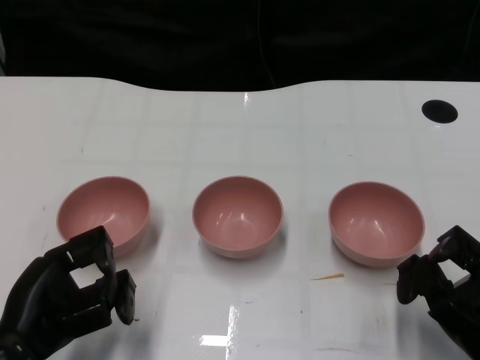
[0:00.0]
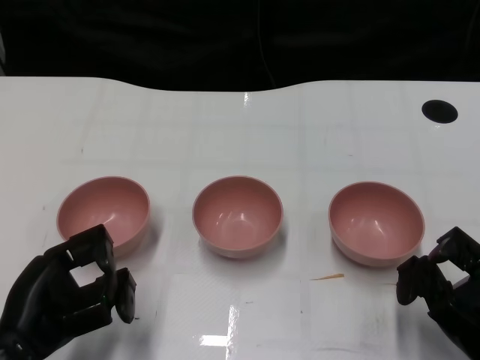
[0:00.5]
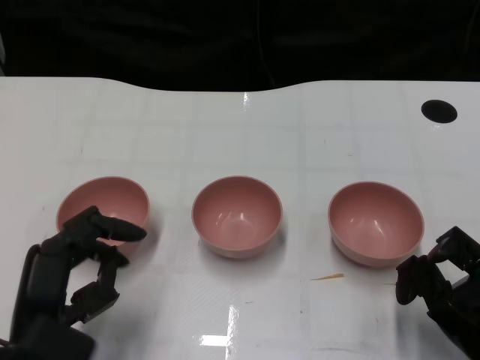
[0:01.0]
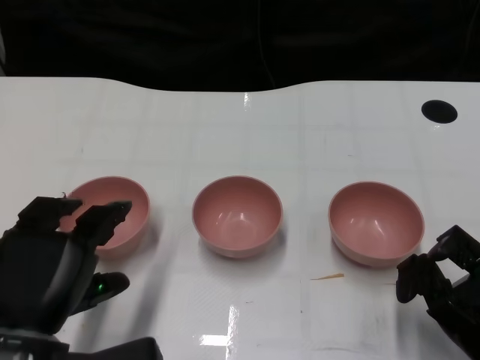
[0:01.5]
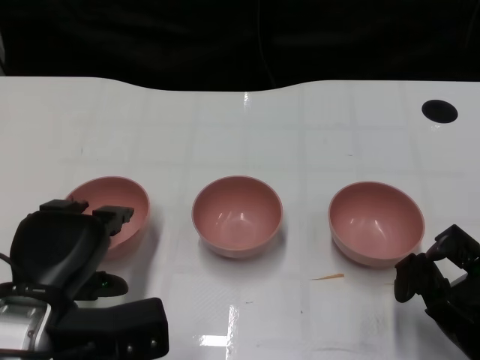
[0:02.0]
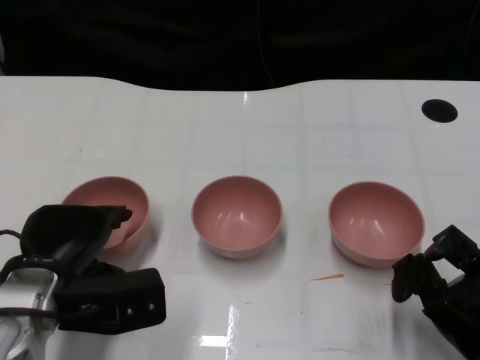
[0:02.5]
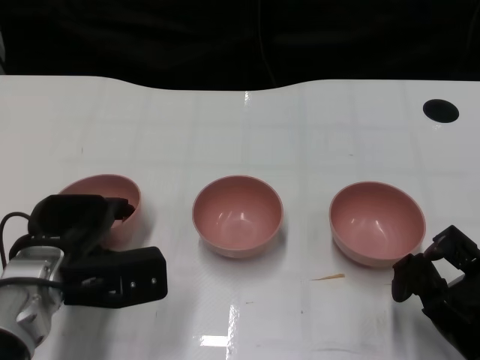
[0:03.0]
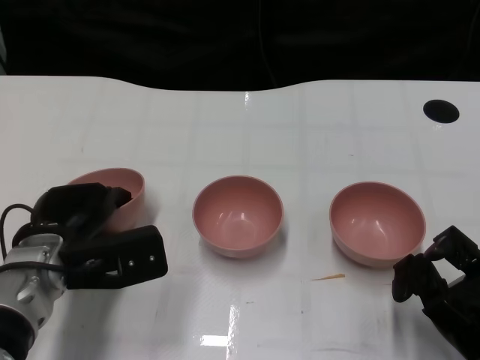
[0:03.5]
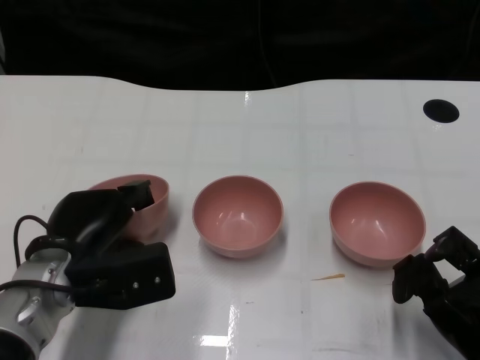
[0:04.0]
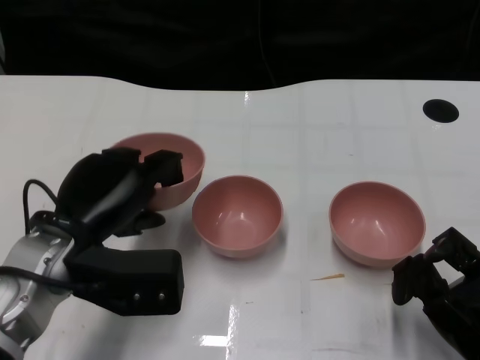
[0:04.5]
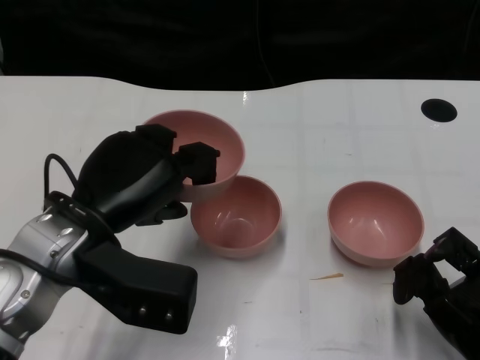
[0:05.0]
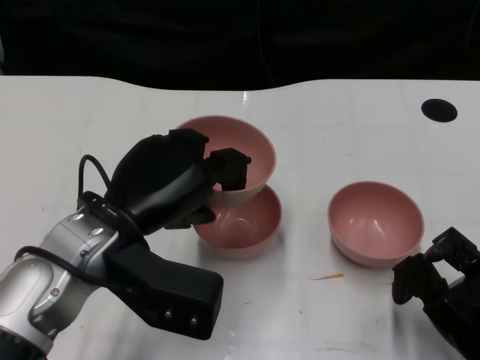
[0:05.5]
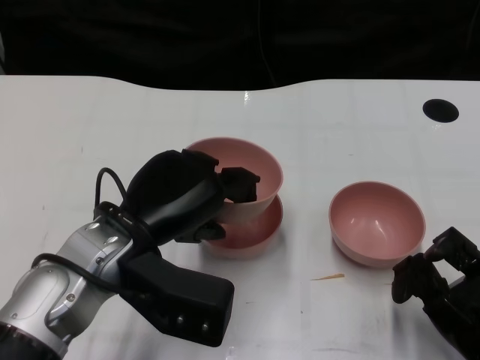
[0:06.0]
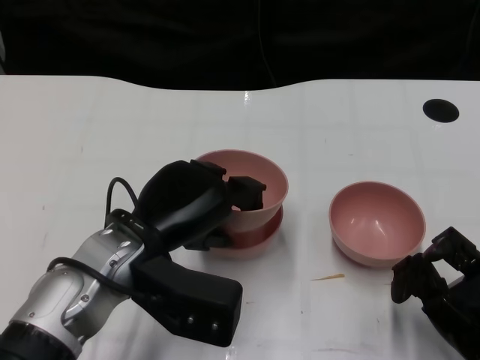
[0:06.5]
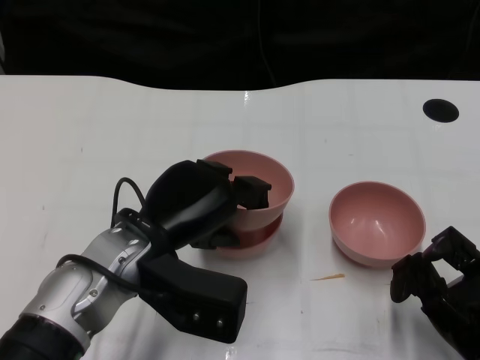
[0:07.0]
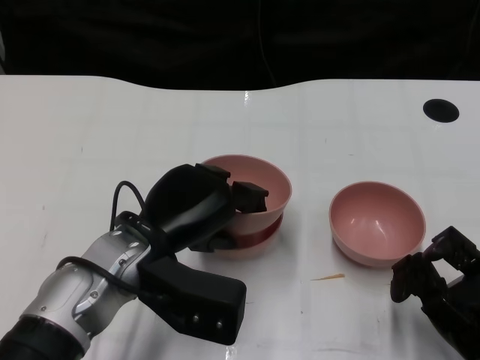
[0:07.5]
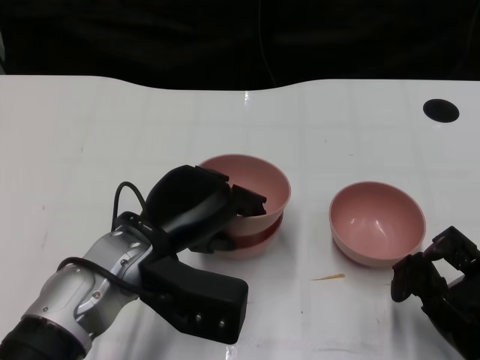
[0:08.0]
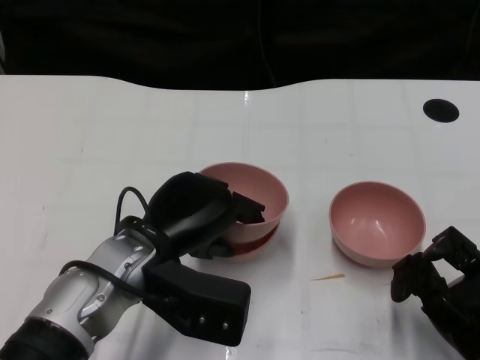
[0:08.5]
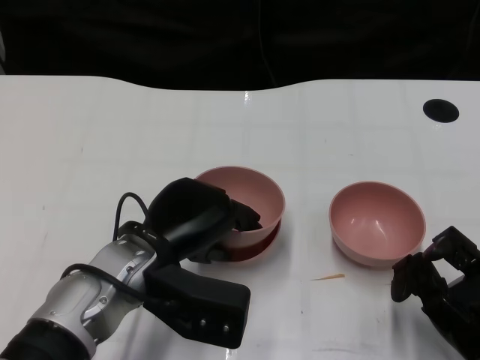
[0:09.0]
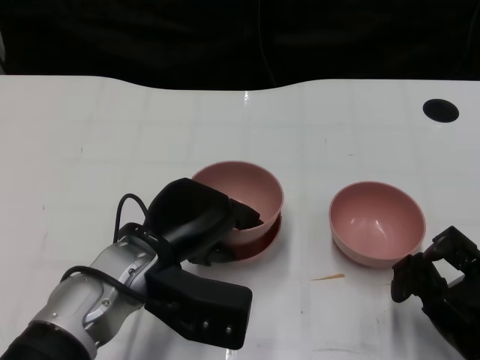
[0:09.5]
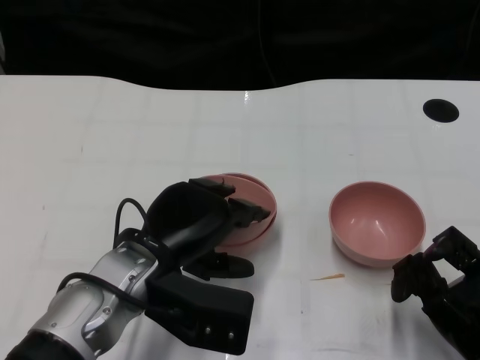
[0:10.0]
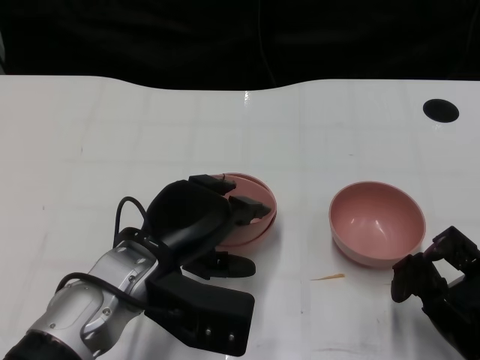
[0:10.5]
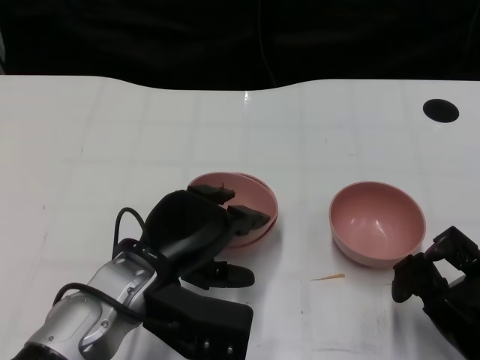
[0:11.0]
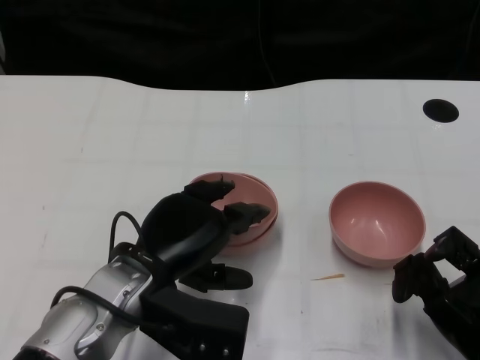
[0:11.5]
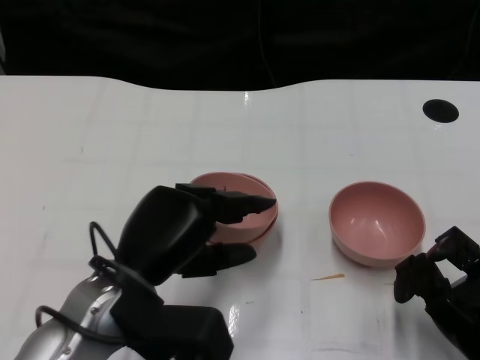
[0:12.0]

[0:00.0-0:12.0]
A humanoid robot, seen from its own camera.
Task of the whole recording: Pick up the bowl on one side of the table and place it on top of the middle bowl, then pick up the bowl on the other side of the table and place it on top of the middle bowls.
Step, 0:01.0 to 0:03.0: Grasp the bowl on the left with the left gripper.
Step, 0:03.5 to 0:11.5: Place the bowl on the left onto the bowl in the middle with left gripper.
0:02.0 to 0:04.0: The left hand goes some 5 cm forward.
0:04.0 to 0:06.0: The left hand travels upward and to the right by about 10 cm.
0:06.0 to 0:10.0: The hands move only a little.

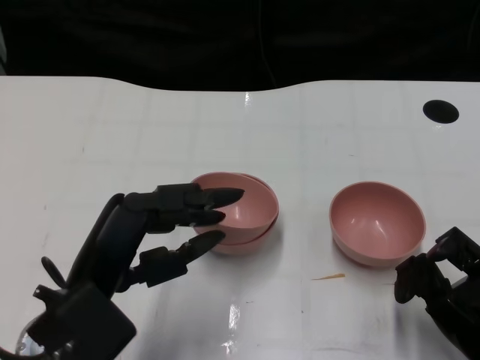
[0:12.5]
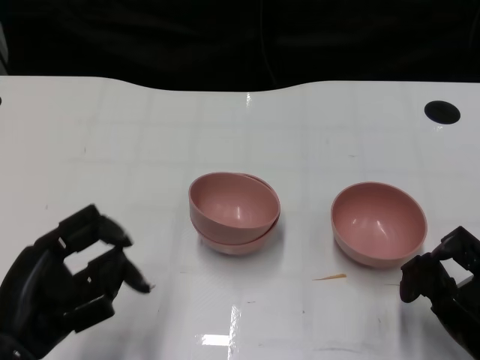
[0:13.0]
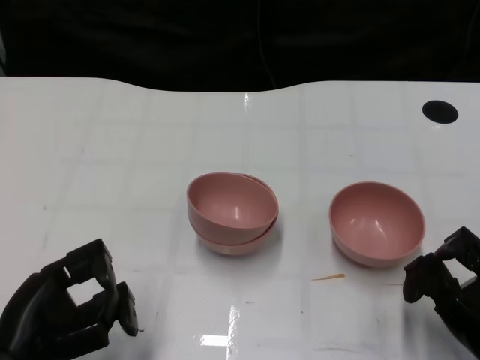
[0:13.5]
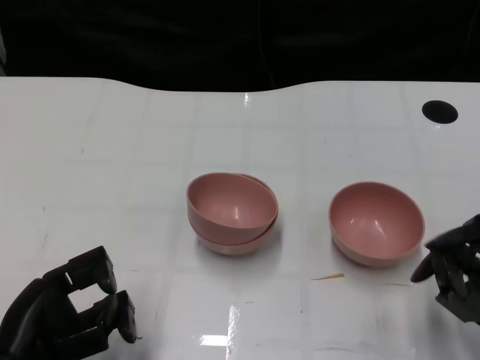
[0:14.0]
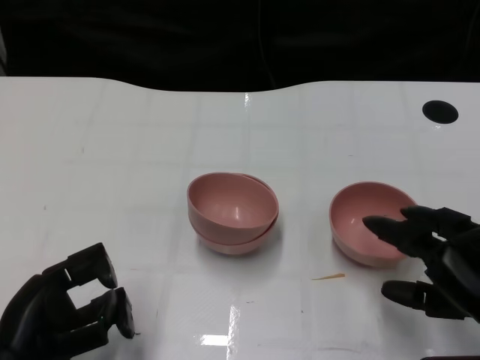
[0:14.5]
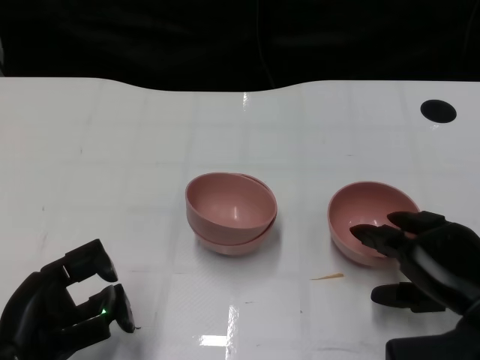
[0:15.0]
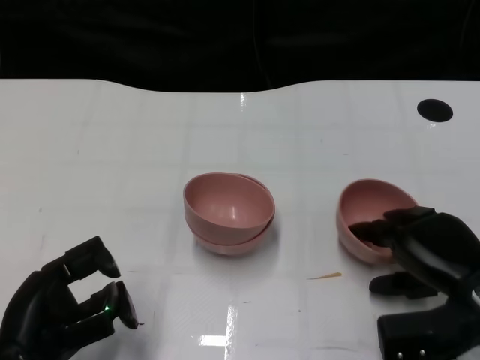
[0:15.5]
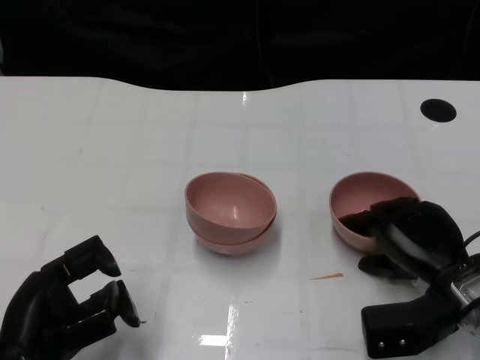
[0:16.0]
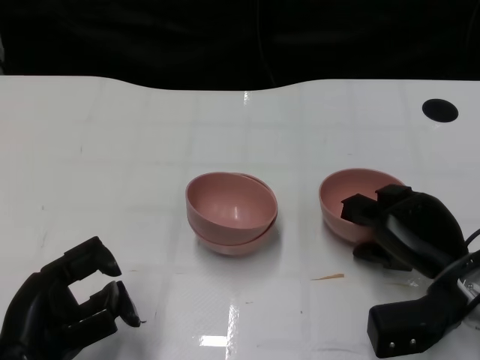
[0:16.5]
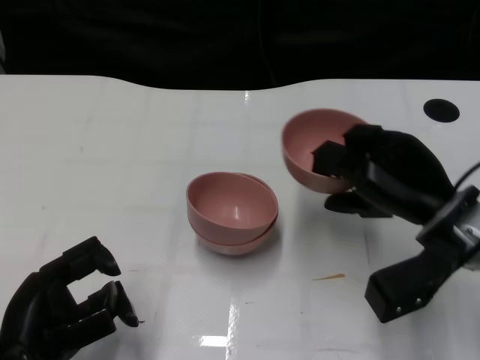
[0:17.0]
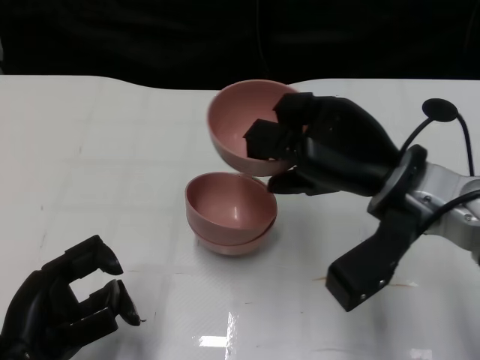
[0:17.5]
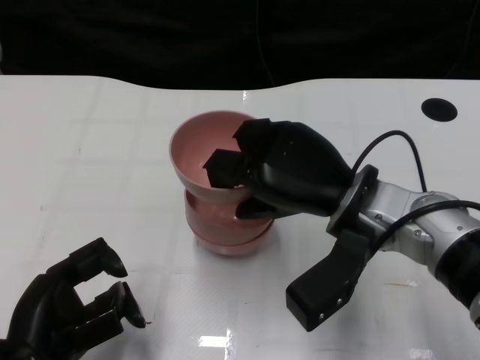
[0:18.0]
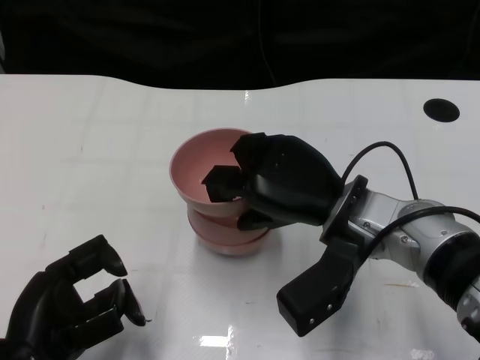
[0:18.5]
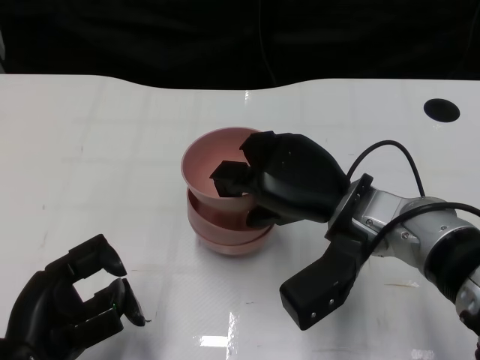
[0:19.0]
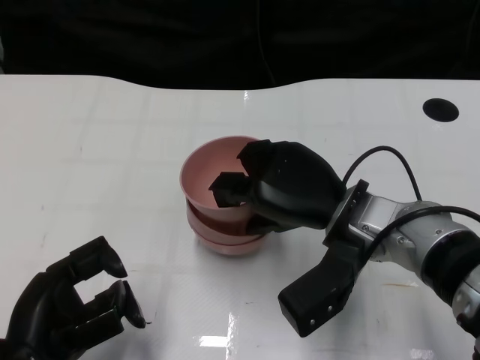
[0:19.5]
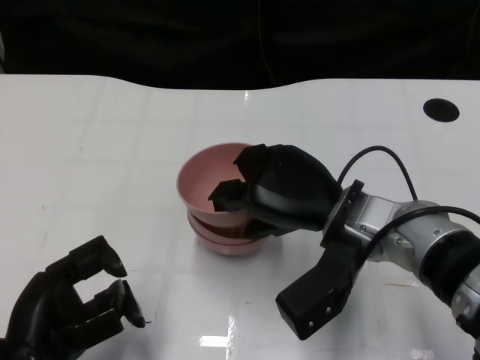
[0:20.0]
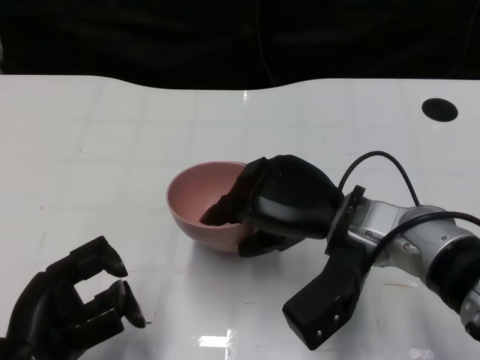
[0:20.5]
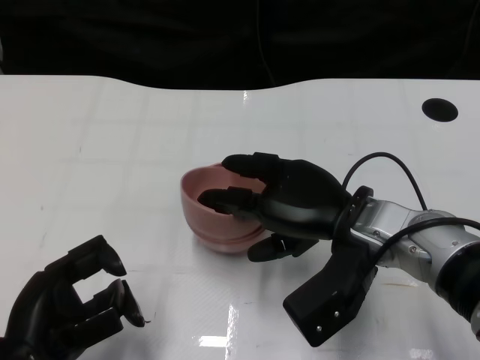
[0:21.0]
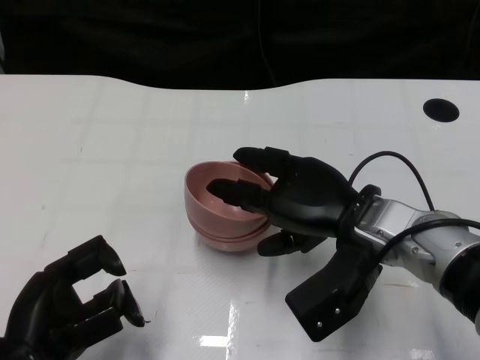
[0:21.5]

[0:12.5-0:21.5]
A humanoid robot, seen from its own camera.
Task of the whole recording: Pick up the bowl on one side of the table and place it on top of the middle bowl, then pick up the bowl on the other side of the table and place it on top of the middle bowls.
Step, 0:12.5 to 0:16.5: Grasp the bowl on the right with the right gripper.
0:12.5 to 0:14.5: The left hand goes approximately 10 cm to the left and downward. Meanwhile the right hand changes place by some 5 cm.
0:14.5 to 0:17.0: The right hand goes approximately 10 cm forward and to the left.
0:17.0 to 0:19.5: The right hand travels to the left by roughly 10 cm.
0:19.5 to 0:21.5: There are only small adjustments of the hands.

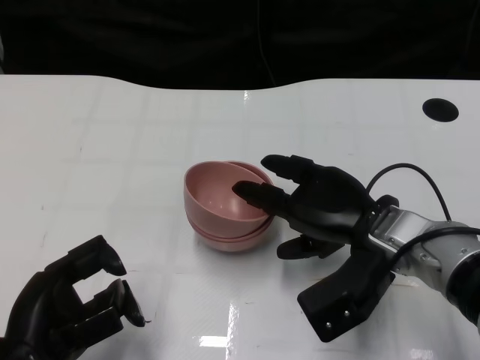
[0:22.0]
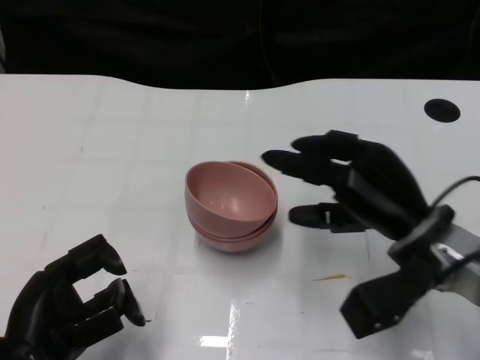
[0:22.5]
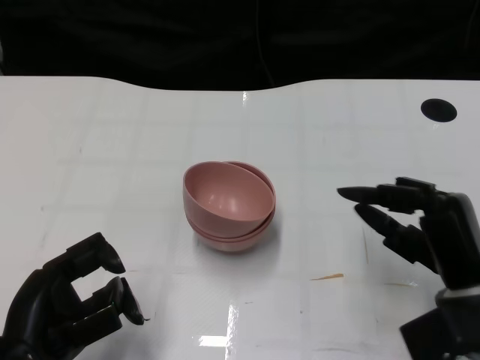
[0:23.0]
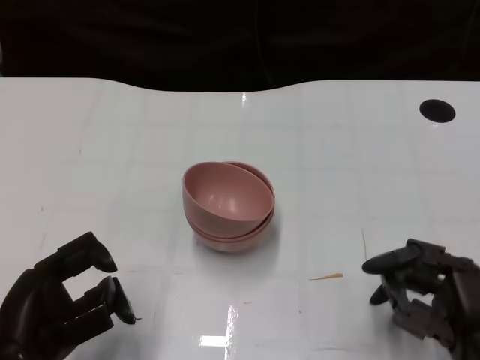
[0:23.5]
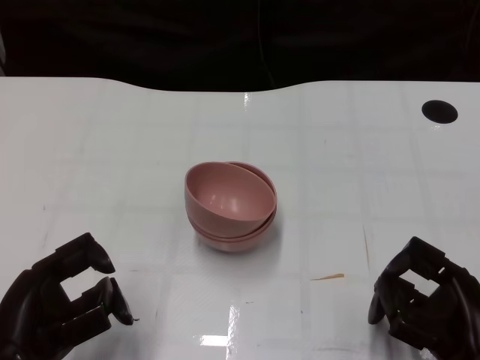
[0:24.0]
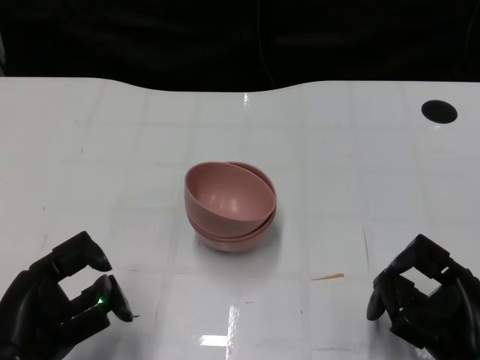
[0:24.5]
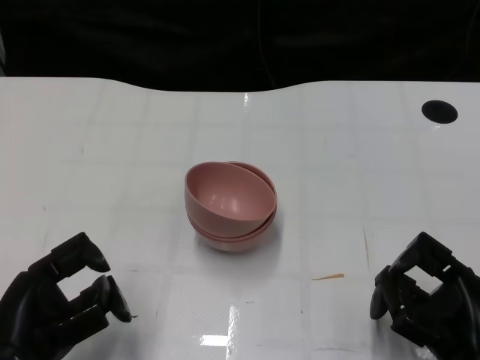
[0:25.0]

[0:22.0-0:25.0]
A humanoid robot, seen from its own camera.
Task of the whole recording: Pick up the bowl on one side of the table and place it on top of the middle bowl, then pick up the bowl on the other side of the table and place it on top of the middle bowls.
0:22.0 to 0:23.5: The right hand moves backward and to the right, approximately 15 cm.

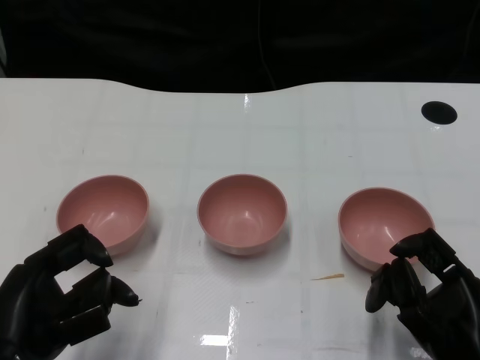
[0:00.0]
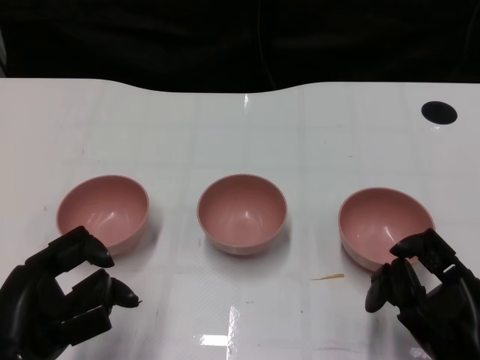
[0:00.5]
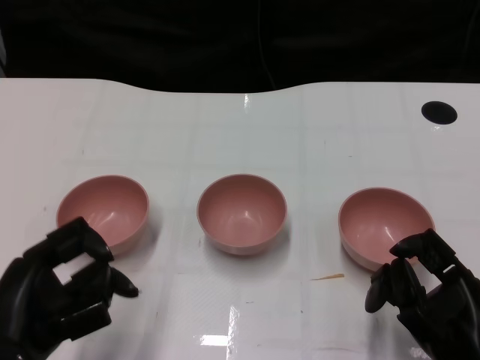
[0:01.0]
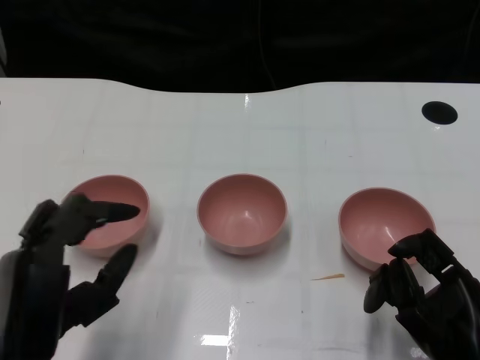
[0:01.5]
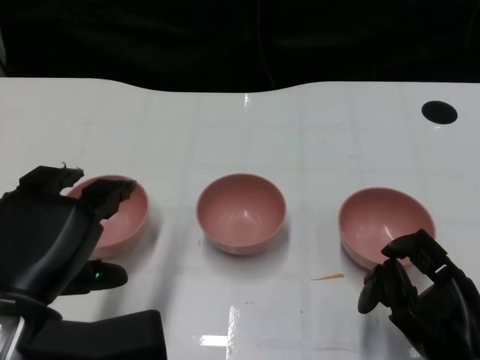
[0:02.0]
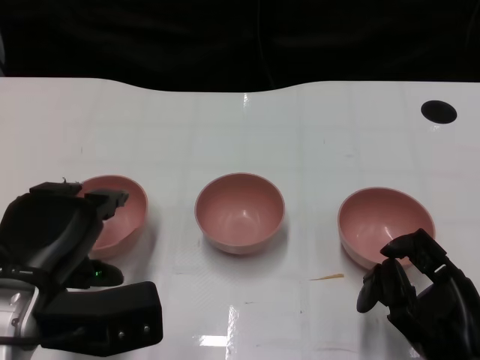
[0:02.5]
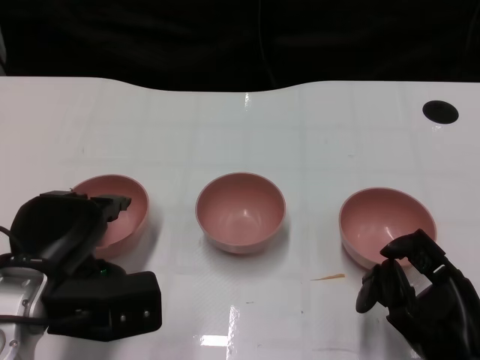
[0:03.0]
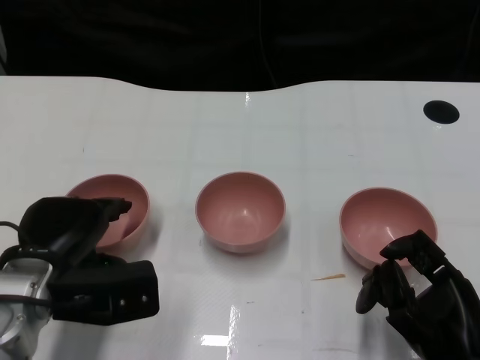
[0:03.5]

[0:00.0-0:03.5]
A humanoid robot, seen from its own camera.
Task of the whole recording: Pick up the bowl on one side of the table and place it on top of the middle bowl, then pick up the bowl on the other side of the table and place it on top of the middle bowls.
0:02.0 to 0:03.5: The left hand travels forward and downward by about 10 cm.
